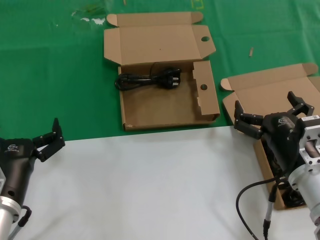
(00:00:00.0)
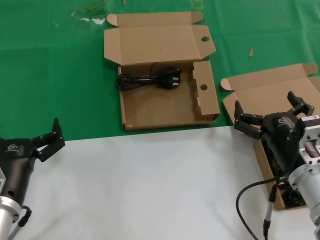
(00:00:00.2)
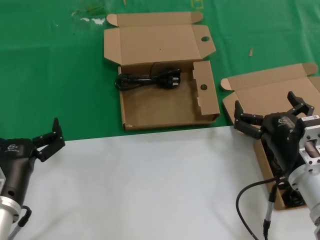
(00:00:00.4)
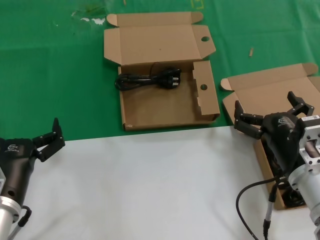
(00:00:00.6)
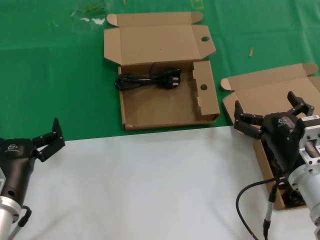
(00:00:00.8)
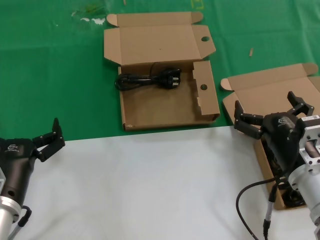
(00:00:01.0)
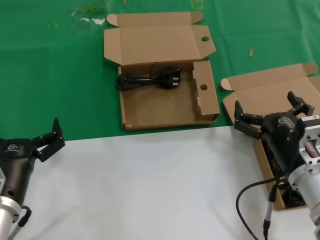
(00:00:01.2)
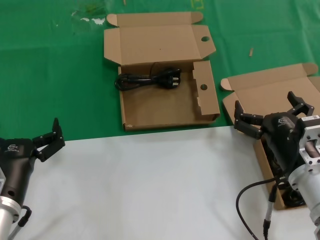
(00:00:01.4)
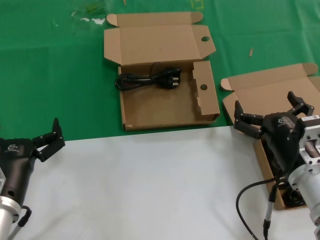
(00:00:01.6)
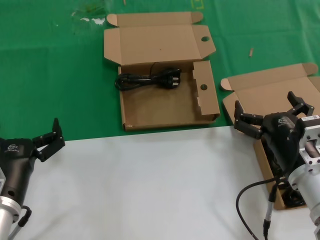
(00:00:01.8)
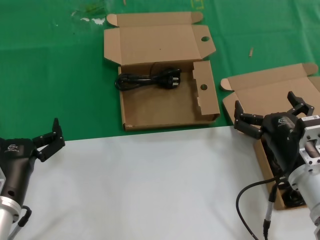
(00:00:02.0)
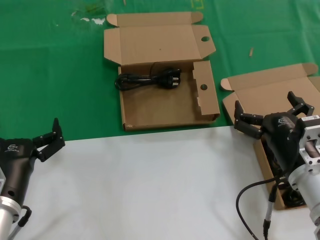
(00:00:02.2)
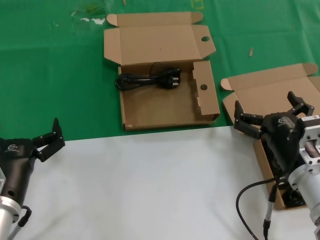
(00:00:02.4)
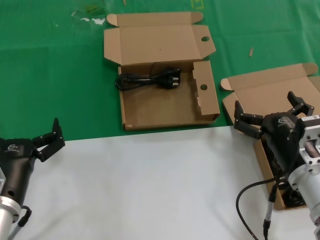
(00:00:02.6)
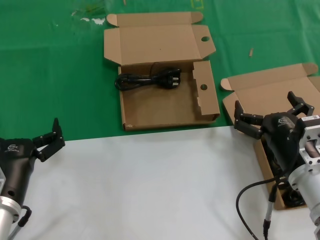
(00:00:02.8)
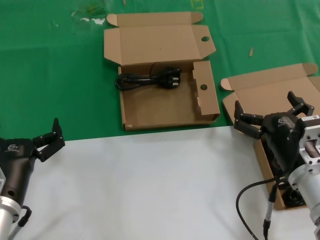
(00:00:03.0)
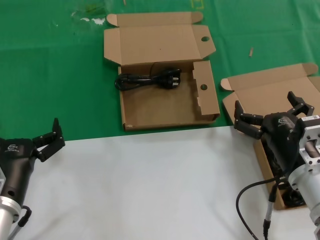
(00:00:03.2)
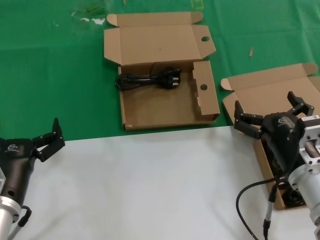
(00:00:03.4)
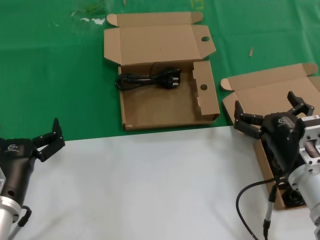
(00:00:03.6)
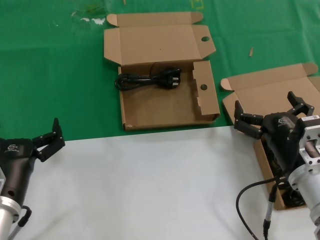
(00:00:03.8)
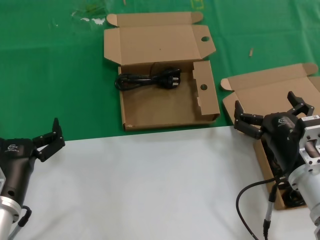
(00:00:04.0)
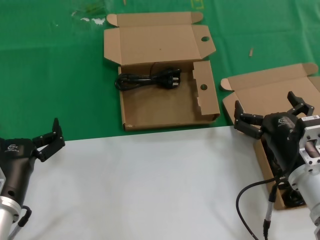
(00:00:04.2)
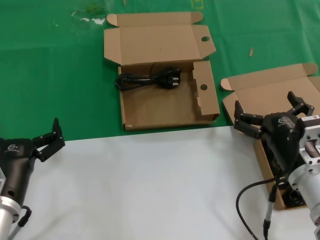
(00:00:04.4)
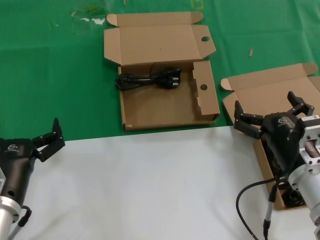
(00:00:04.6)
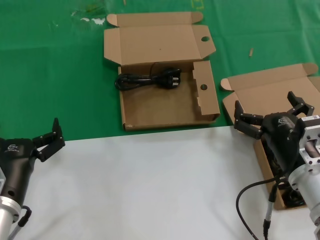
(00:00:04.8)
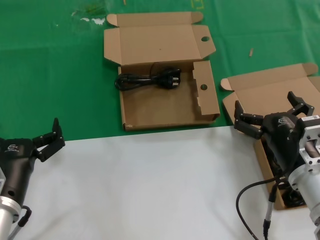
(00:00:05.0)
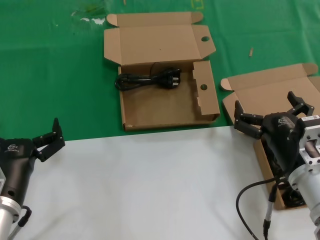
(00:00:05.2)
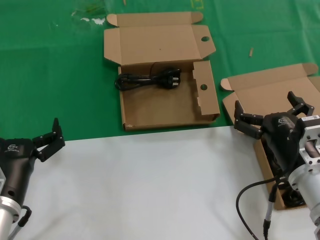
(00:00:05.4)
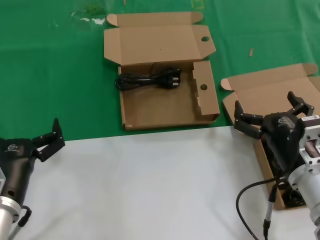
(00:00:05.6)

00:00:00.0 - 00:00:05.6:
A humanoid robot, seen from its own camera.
Task of the whole recording: take the parts from the box containing them and put them into an empty box.
00:00:00.0 - 00:00:05.6: Neither hand changes place.

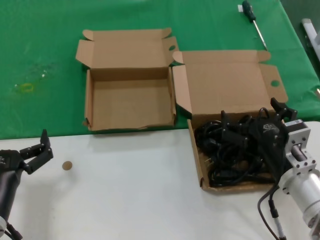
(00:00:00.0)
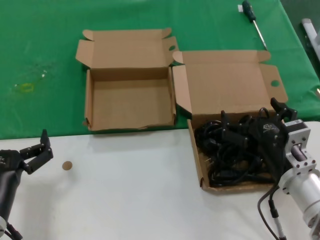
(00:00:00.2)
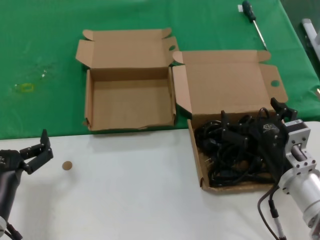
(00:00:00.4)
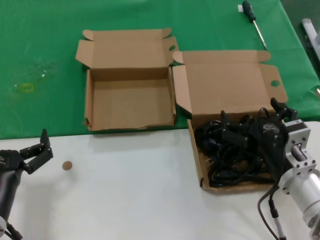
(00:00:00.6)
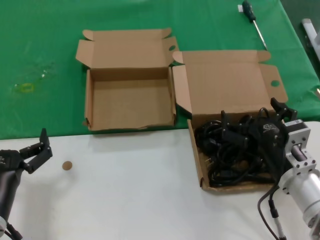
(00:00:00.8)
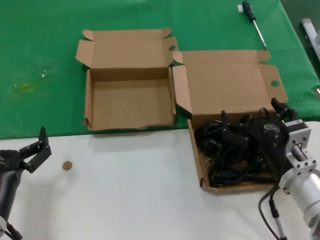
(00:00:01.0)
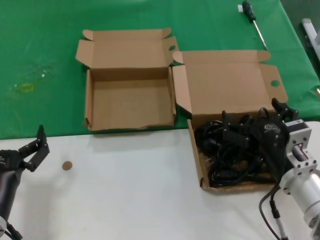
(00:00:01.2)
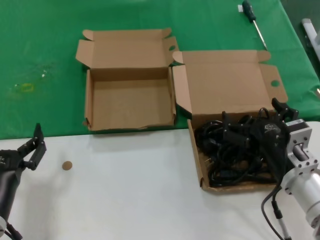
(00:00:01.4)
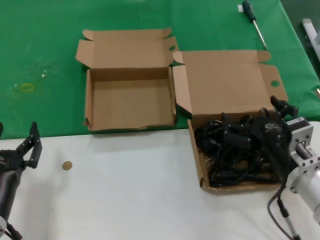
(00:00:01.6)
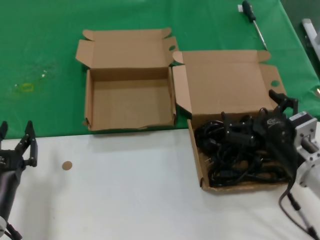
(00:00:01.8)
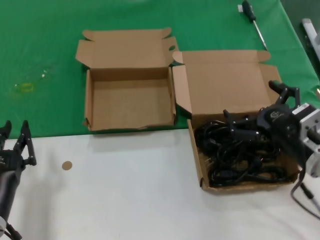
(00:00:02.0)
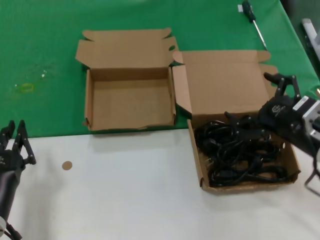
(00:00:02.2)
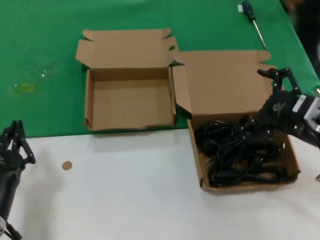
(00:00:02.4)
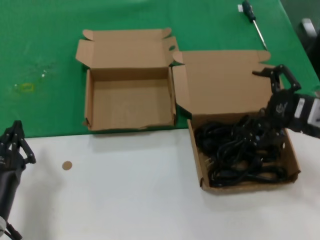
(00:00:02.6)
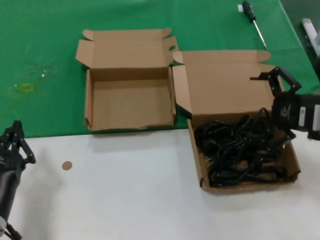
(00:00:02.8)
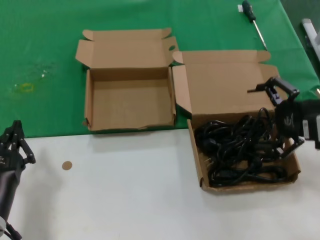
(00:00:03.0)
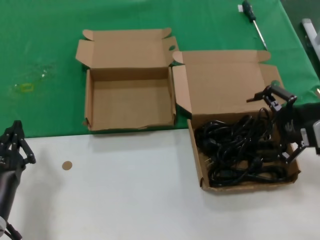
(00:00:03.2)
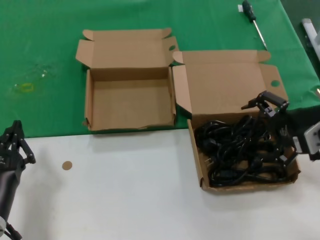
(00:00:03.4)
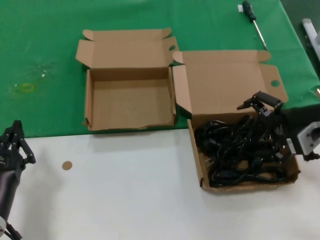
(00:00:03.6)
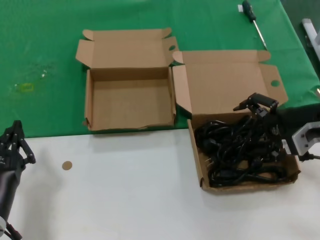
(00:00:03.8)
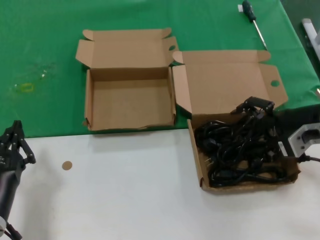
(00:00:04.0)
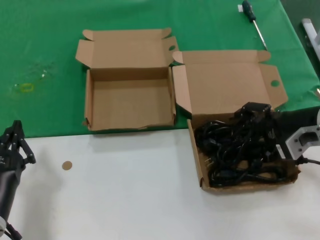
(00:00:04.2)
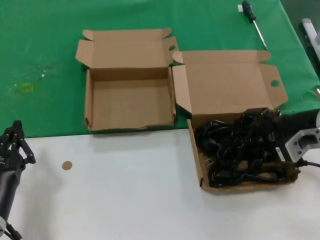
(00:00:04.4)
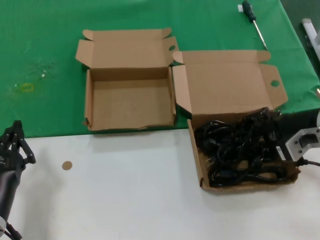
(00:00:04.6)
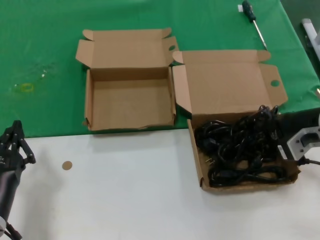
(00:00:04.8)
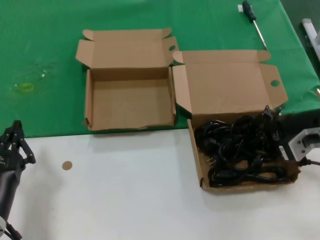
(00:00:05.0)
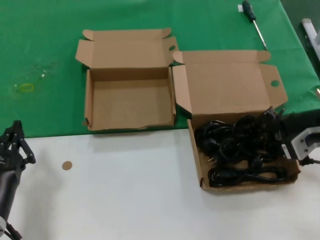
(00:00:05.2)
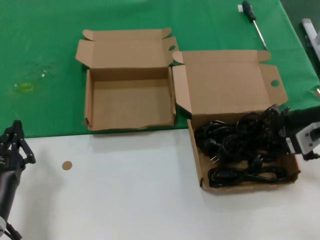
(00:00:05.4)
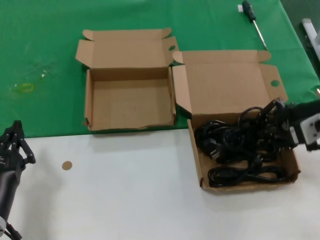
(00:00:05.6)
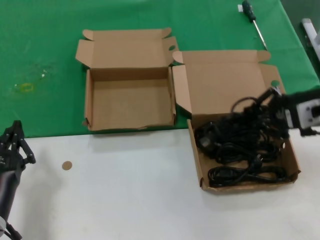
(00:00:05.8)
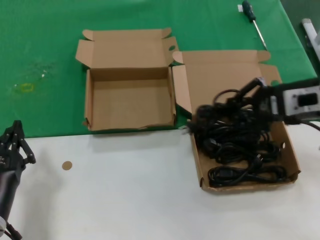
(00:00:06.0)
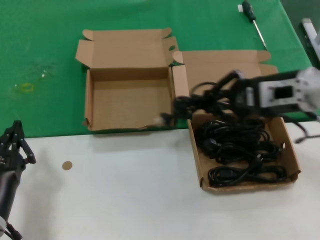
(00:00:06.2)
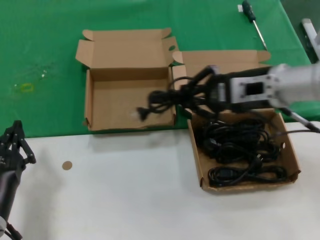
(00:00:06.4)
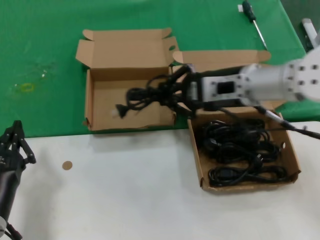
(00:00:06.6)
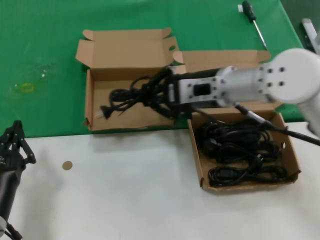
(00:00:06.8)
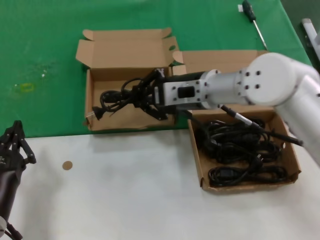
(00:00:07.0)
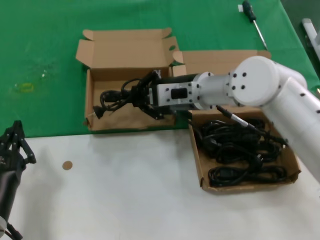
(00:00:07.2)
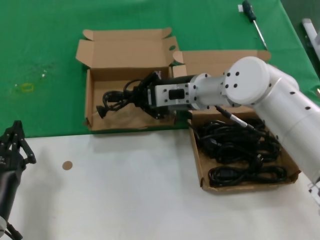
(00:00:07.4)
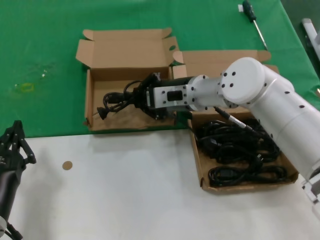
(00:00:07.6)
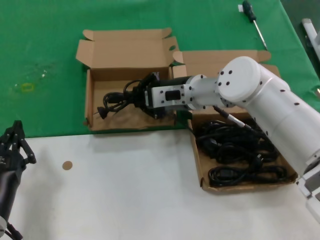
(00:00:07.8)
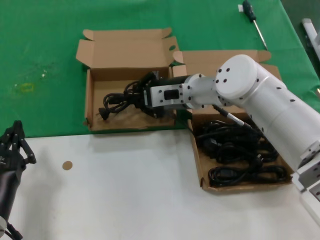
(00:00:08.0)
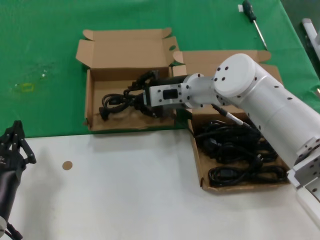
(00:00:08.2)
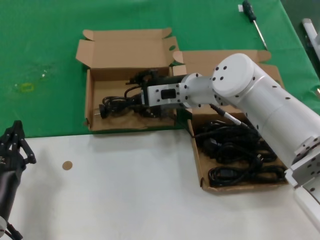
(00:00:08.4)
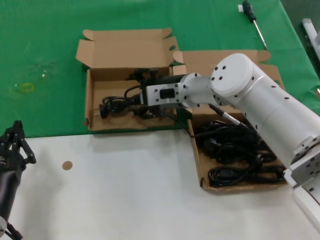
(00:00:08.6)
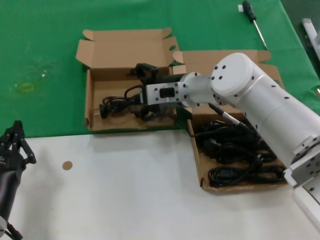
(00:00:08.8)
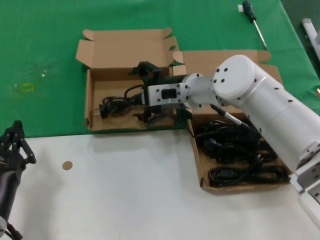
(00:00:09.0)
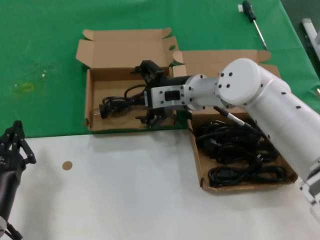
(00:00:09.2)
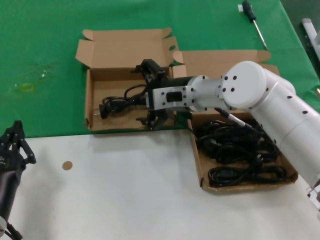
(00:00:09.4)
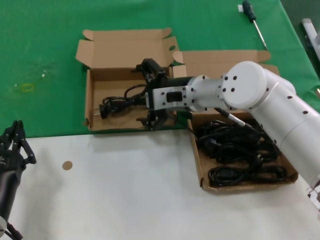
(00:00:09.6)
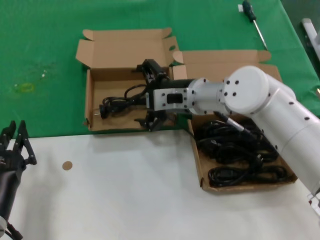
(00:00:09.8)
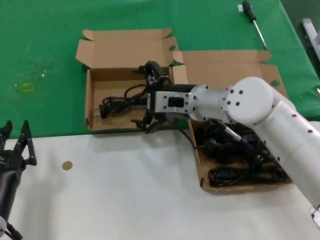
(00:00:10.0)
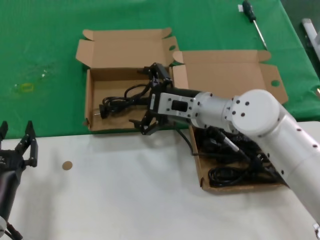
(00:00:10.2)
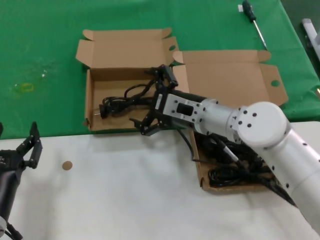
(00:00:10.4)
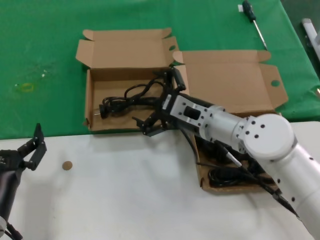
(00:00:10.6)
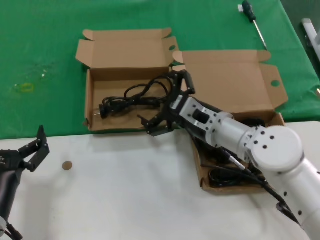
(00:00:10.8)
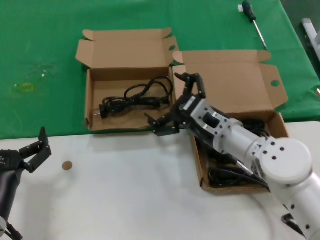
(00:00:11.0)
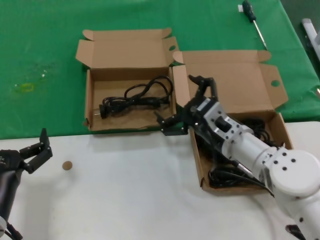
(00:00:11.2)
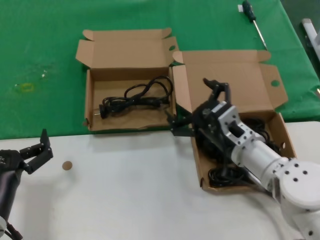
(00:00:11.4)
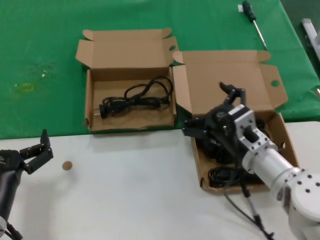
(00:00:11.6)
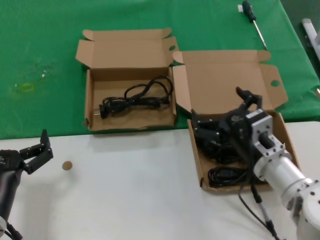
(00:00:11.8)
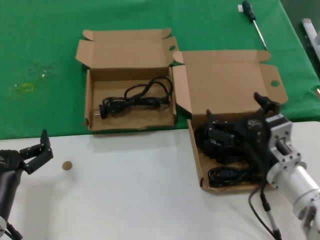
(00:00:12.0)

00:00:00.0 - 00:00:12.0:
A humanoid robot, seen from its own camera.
Task of the whole recording: take the parts from the box containing them and put them into an empty box.
Step, 00:00:00.0 - 00:00:05.0: Grasp the data cable.
Step, 00:00:05.2 - 00:00:08.8: Place the data cable in the another box.
00:00:00.0 - 00:00:01.6: Neither hand changes place.
00:00:01.6 - 00:00:03.0: The right hand goes about 20 cm upward, to the right and forward.
00:00:03.0 - 00:00:04.4: The right hand ends up some 5 cm from where it was.
00:00:04.4 - 00:00:06.0: The right hand heads upward, covering about 5 cm.
00:00:06.0 - 00:00:07.6: The right hand shifts some 25 cm to the left and forward.
00:00:07.6 - 00:00:09.0: The hands stay close to where they were, moving slightly.
00:00:09.0 - 00:00:10.4: The right hand shifts about 5 cm backward.
00:00:10.4 - 00:00:12.0: The right hand is displaced backward, to the right and downward by about 20 cm.

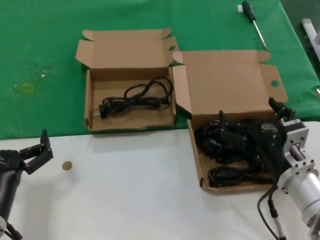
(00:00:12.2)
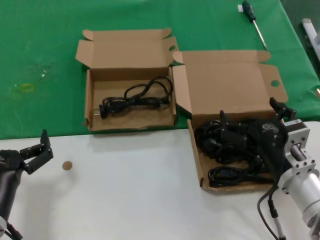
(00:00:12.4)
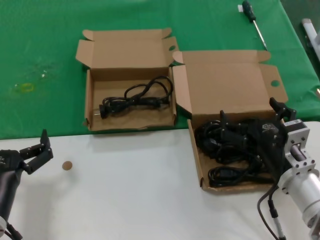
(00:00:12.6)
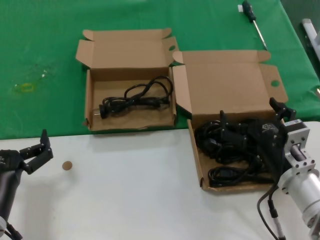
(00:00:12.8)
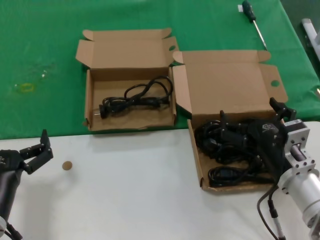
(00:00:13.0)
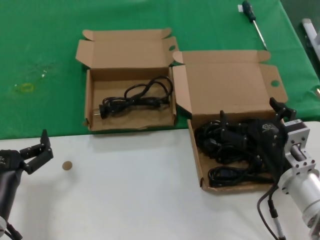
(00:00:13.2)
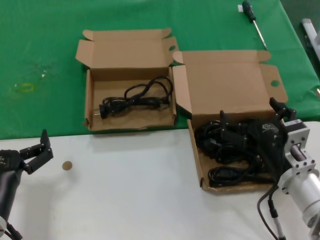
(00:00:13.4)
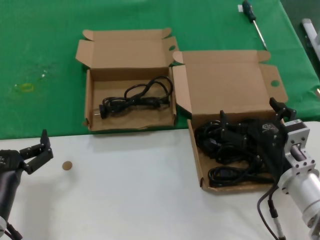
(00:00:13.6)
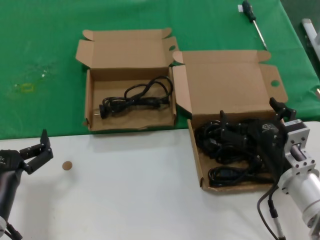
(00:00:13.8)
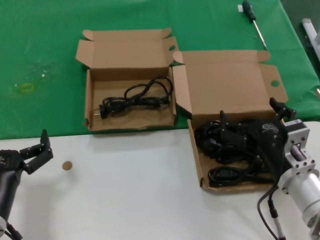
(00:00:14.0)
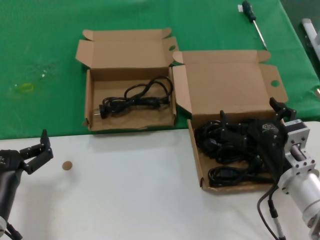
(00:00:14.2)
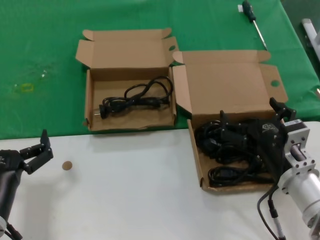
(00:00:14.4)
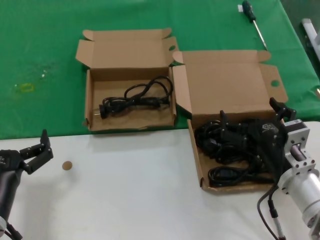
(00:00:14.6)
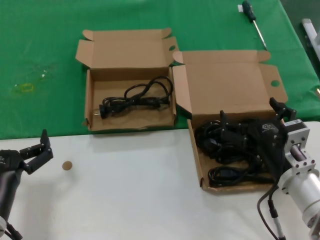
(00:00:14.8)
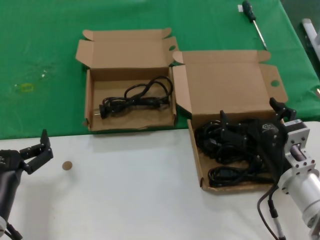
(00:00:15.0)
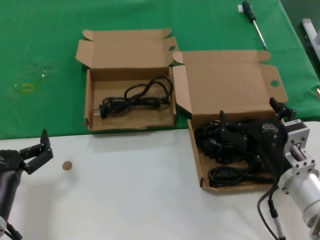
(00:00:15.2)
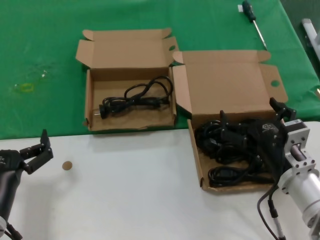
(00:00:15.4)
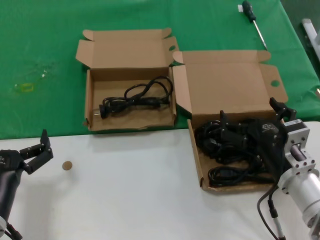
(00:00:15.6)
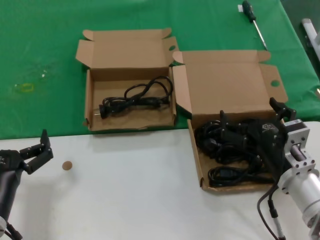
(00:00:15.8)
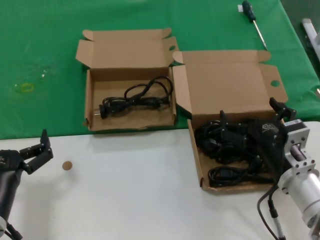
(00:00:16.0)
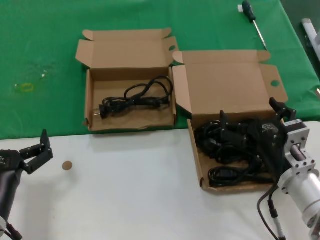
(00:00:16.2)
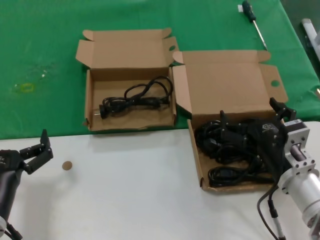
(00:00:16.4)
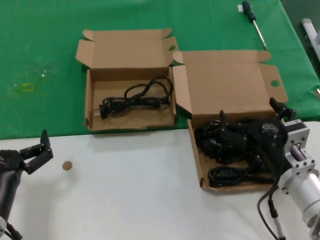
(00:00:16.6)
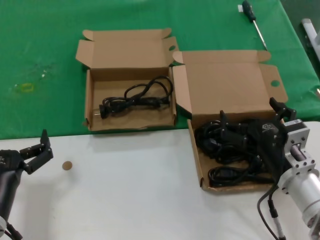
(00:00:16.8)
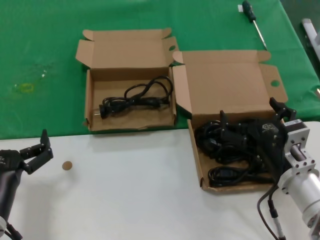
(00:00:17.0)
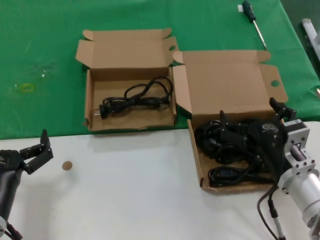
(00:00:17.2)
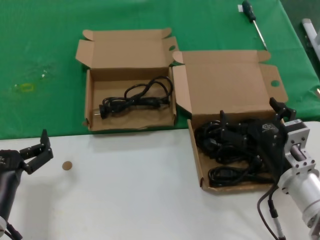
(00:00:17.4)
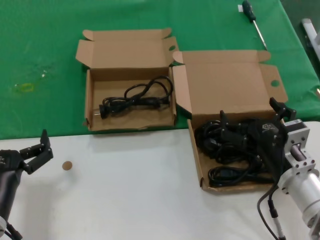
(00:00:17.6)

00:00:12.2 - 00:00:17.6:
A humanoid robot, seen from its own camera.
Task of the whole recording: take the parts from the box containing them and put them into an empty box.
00:00:12.2 - 00:00:17.6: Both hands stay about where they are.
